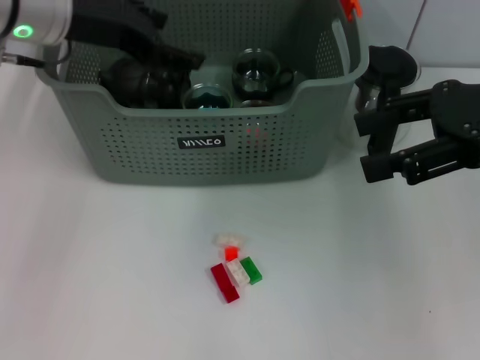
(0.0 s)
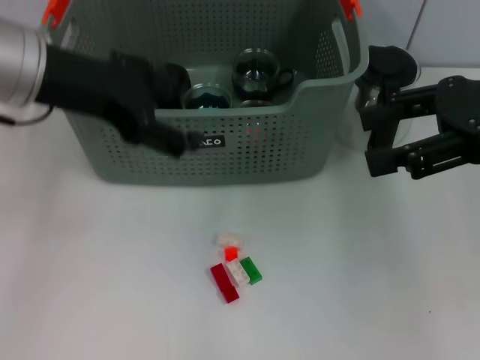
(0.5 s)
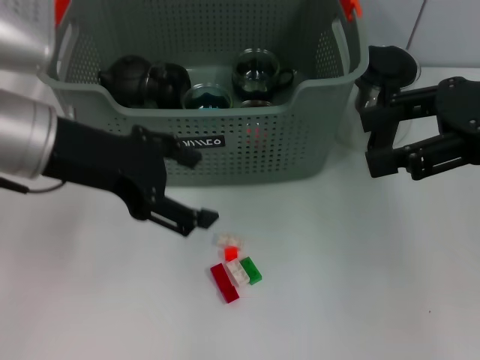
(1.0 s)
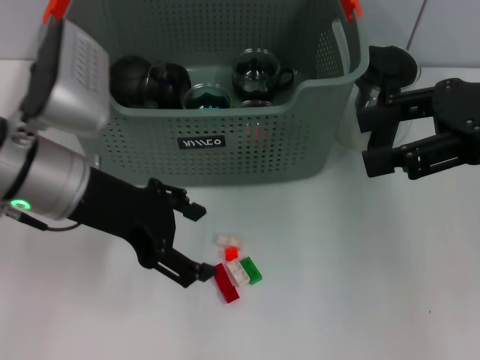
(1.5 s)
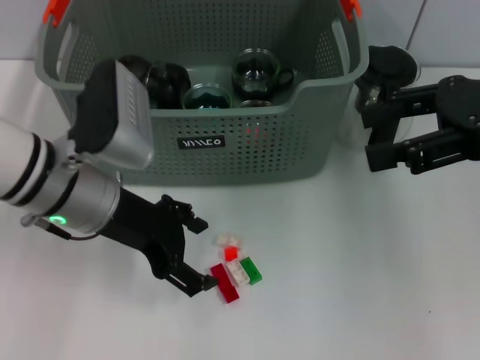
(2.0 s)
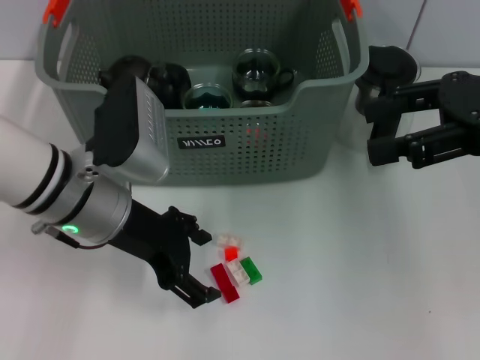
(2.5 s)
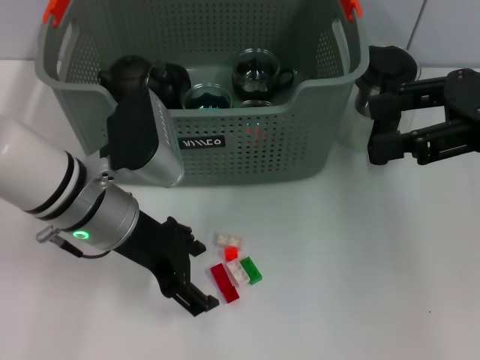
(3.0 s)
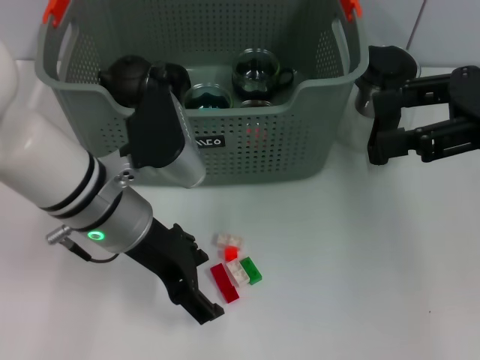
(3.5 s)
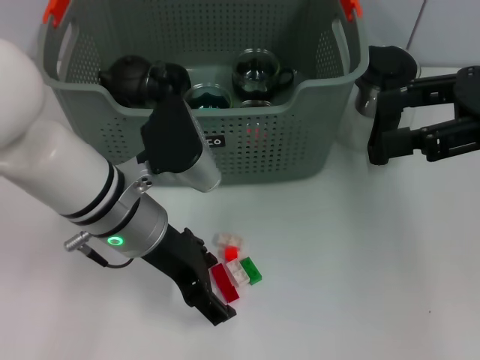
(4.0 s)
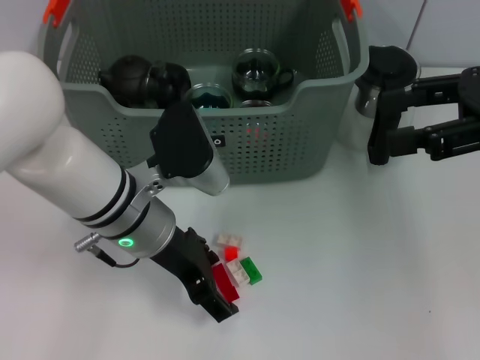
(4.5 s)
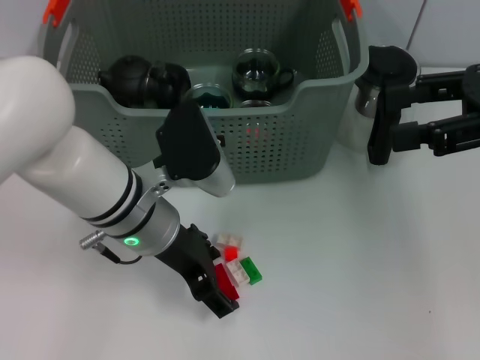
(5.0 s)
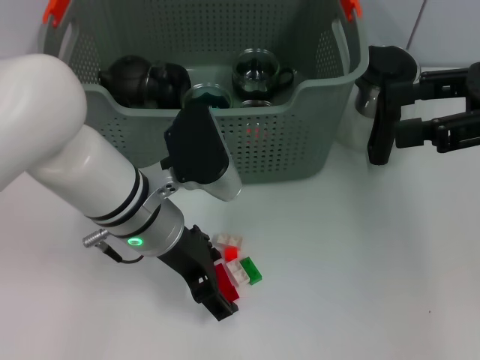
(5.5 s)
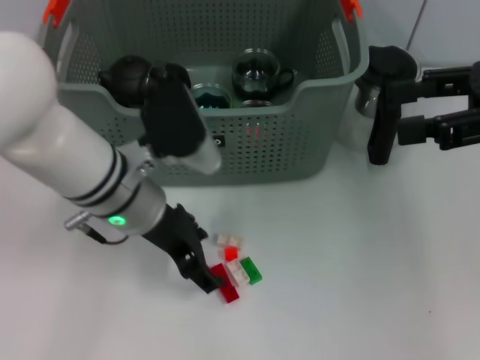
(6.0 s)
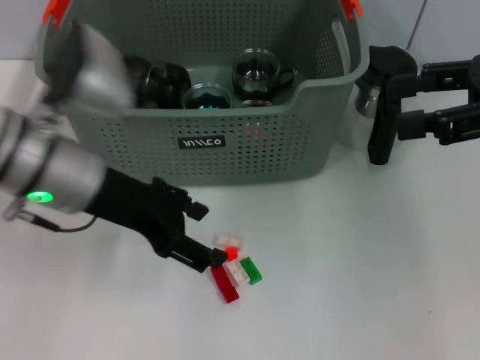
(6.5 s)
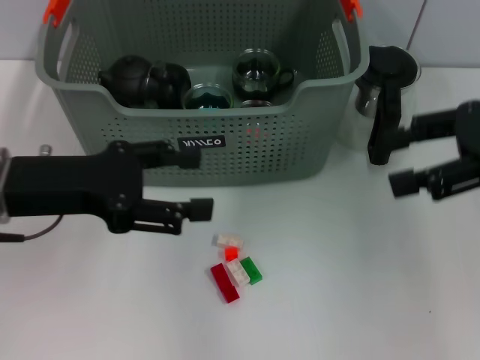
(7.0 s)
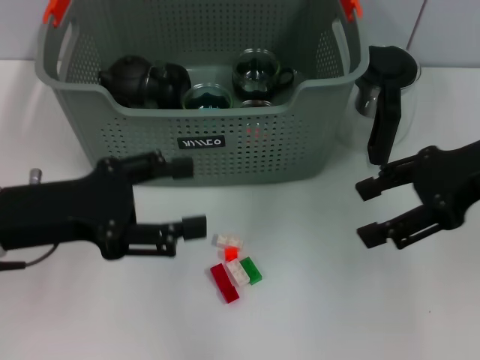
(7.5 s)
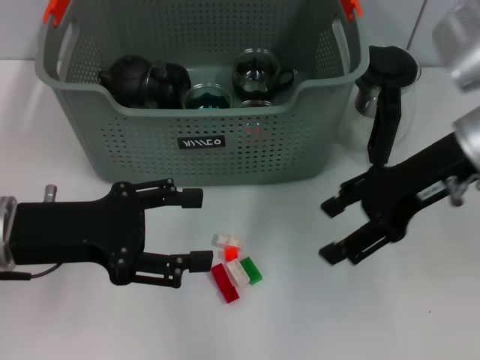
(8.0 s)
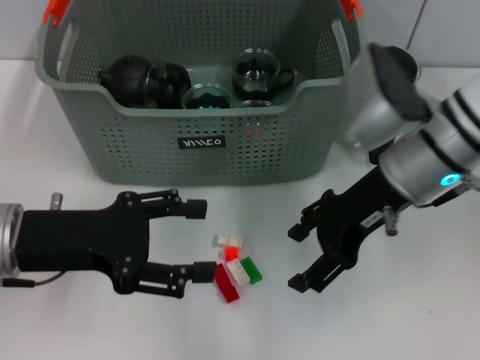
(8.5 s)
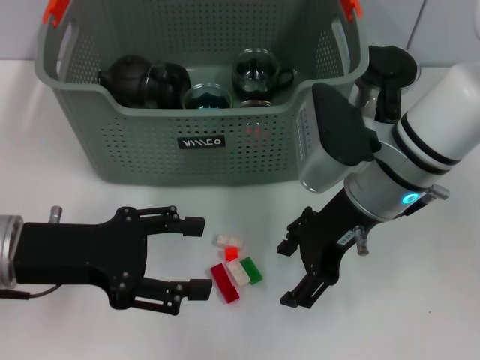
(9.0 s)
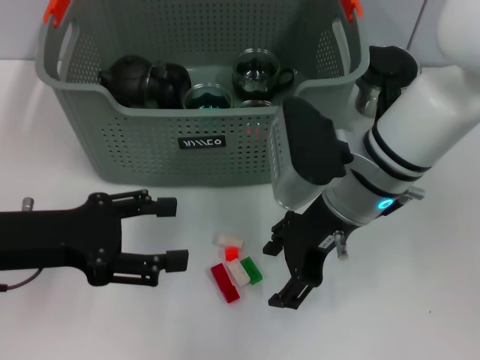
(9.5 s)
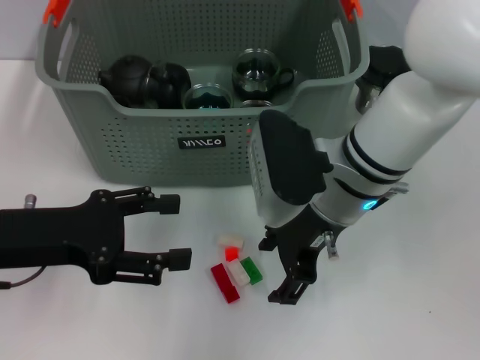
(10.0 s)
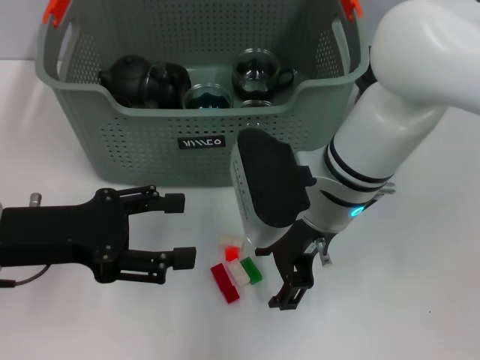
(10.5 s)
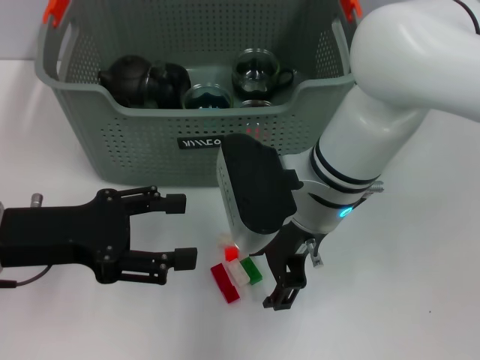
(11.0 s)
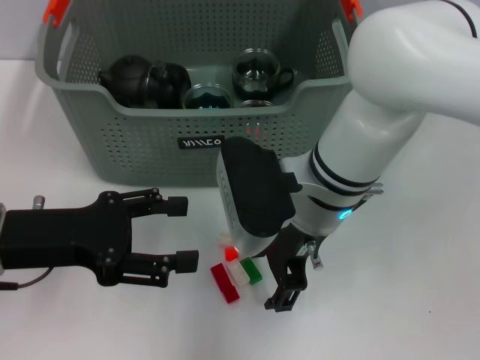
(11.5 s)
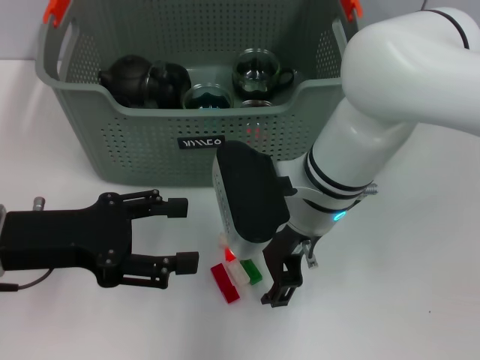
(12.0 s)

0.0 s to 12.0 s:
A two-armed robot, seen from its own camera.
Task of the whole recording: pick up the teacup on the table and place it into the storage bin, pick up the block on the table and place it into the storage bin.
0.0 to 2.0 s: The left gripper is displaced downward and backward by about 15 cm.
2.0 to 4.0 s: The left gripper shifts by some 5 cm.
4.0 to 6.0 s: The grippers move only a little.
6.0 to 8.0 s: The right gripper heads to the left and downward, covering some 10 cm. The left gripper heads to the left and backward, covering some 15 cm.
8.0 to 10.0 s: The right gripper moves to the left and downward, approximately 15 cm.

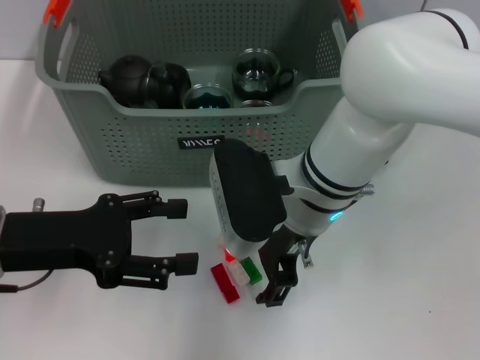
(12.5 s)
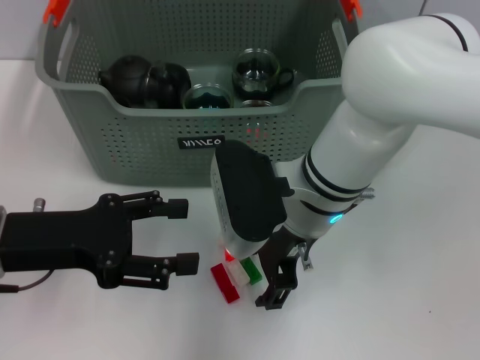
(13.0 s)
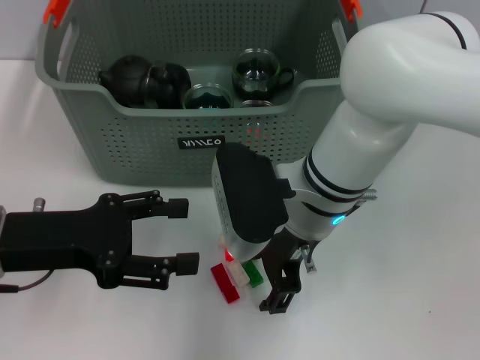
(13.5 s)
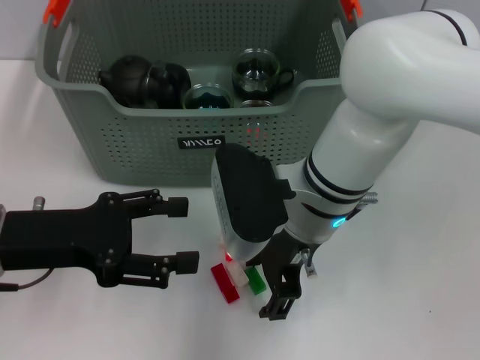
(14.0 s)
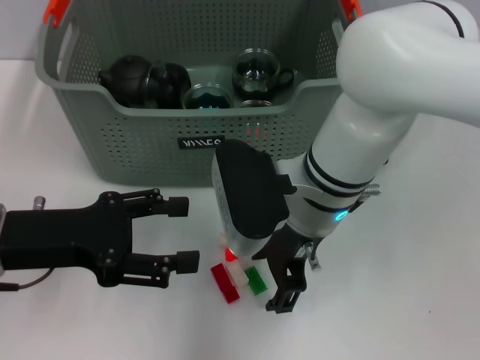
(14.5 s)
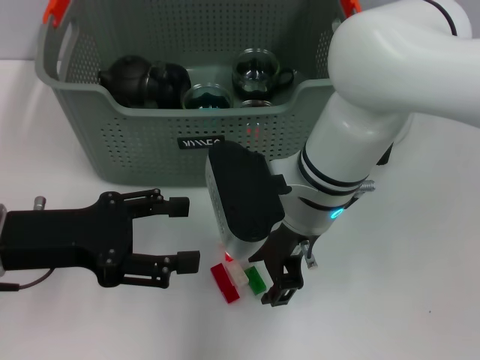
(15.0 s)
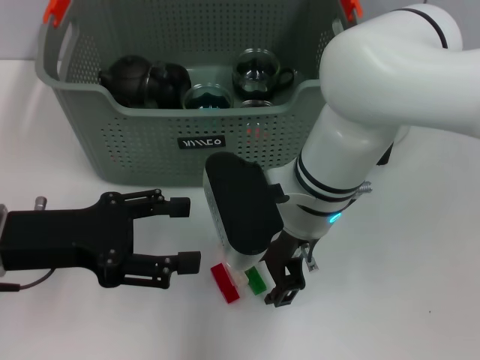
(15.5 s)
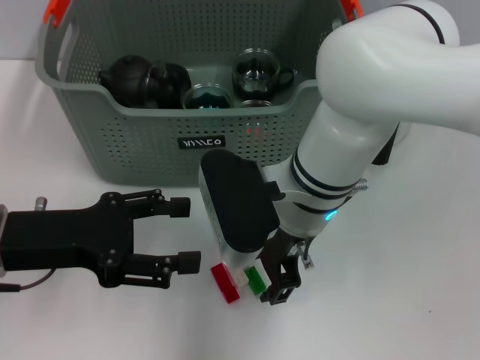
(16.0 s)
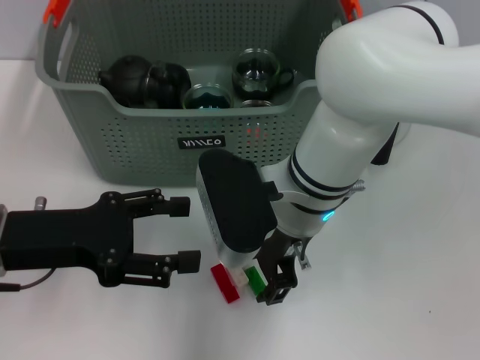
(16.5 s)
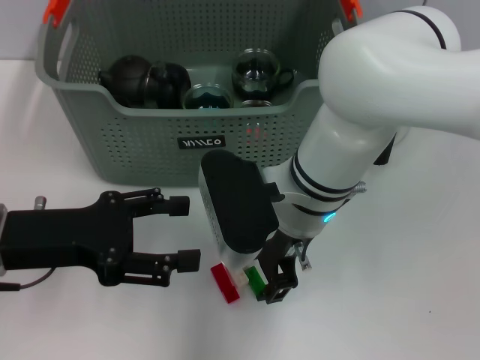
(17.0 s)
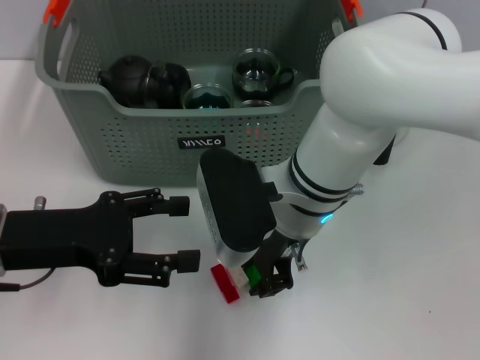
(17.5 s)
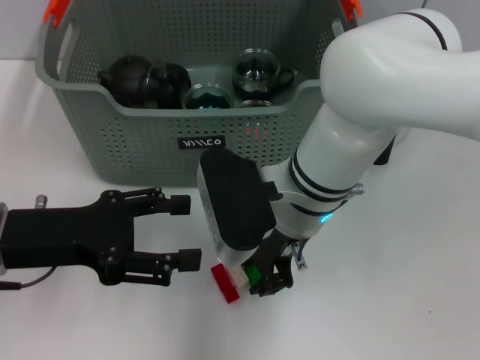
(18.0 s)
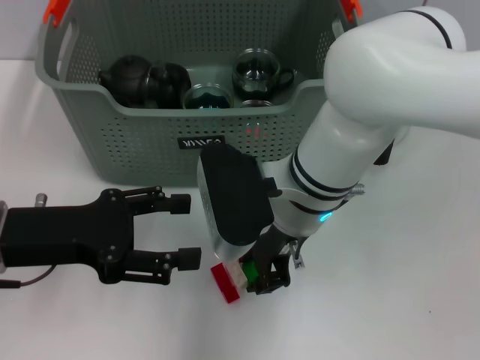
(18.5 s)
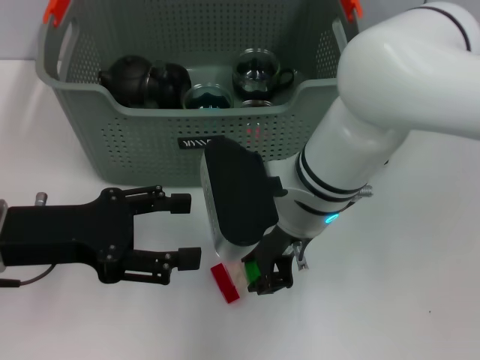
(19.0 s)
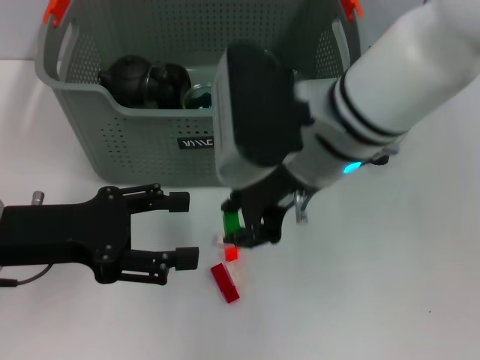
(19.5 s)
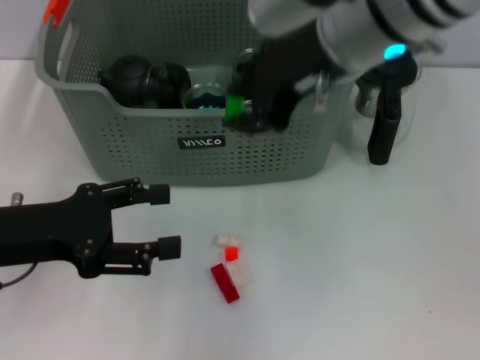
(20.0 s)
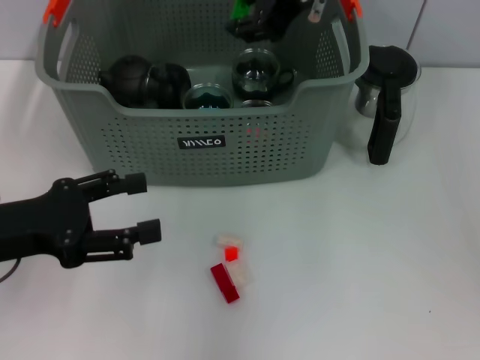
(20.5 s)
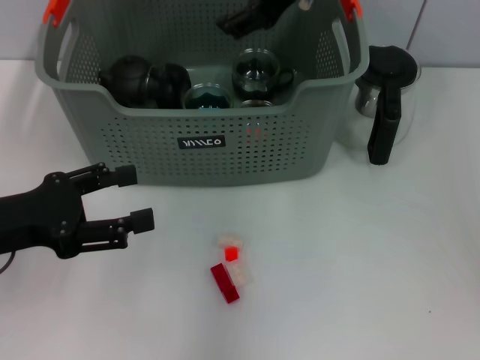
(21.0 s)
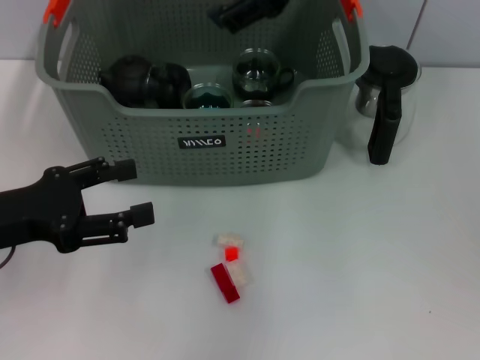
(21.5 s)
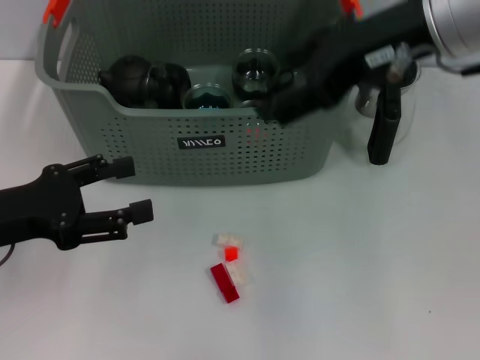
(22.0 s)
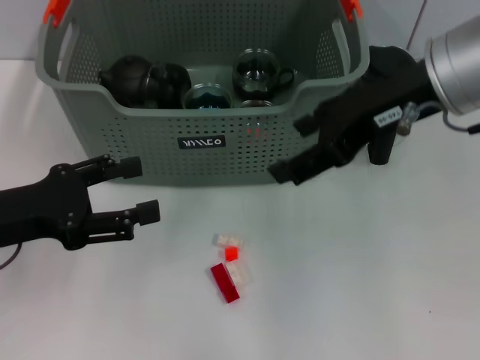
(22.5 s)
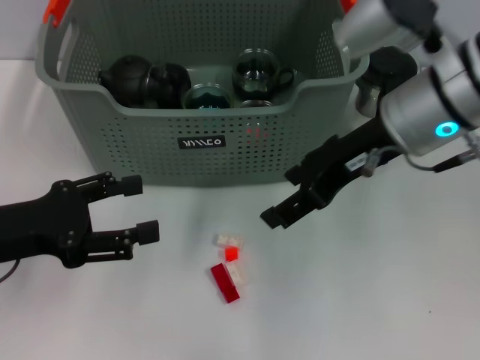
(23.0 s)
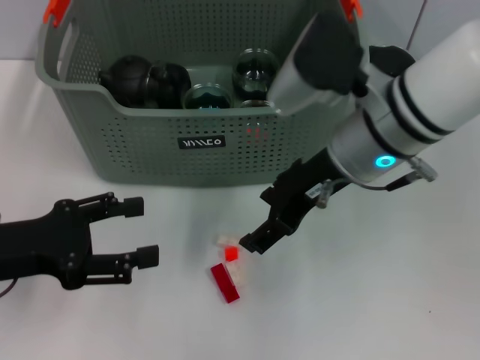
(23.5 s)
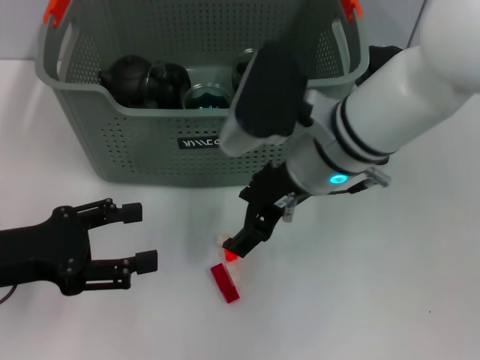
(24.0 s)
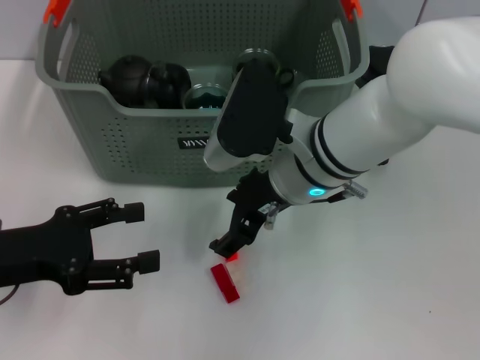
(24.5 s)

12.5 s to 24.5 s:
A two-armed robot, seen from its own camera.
Task of the whole recording: pick up the teacup on the table and place it into the storage bin, pick up the block on the table and place it into the storage bin.
Step, 12.5 to 18.0 s: Grasp the green block with right gripper.
Step, 18.5 to 21.5 s: Place the green block in the storage box with right gripper.
12.5 to 14.5 s: Neither gripper changes place.
14.5 to 16.5 s: The grippers move only a little.
16.5 to 18.5 s: Both grippers stay about where they are.
18.5 to 20.5 s: The right gripper heads upward and forward, covering roughly 20 cm.
20.5 to 22.5 s: The right gripper shifts about 10 cm backward and to the right, and opens.
22.5 to 24.5 s: The right gripper shifts roughly 15 cm downward and to the left.

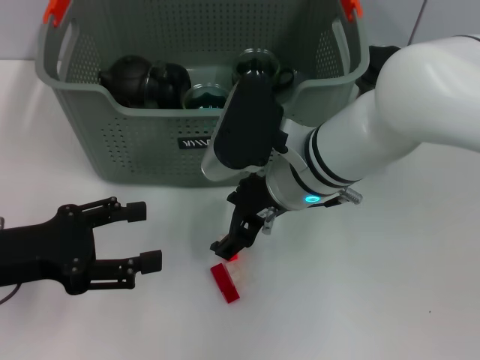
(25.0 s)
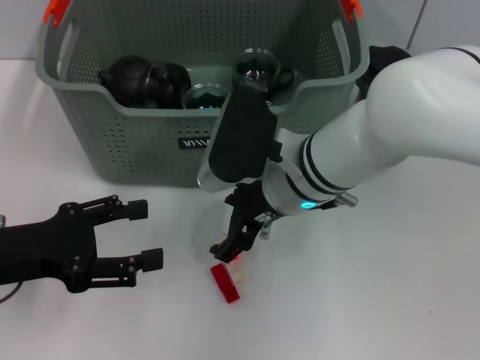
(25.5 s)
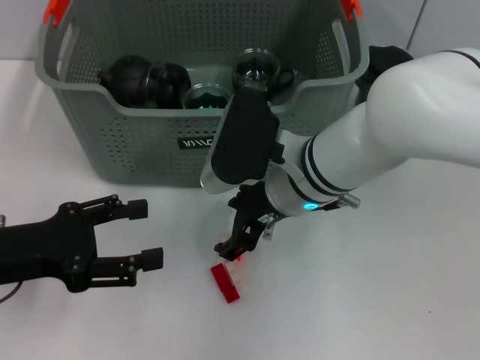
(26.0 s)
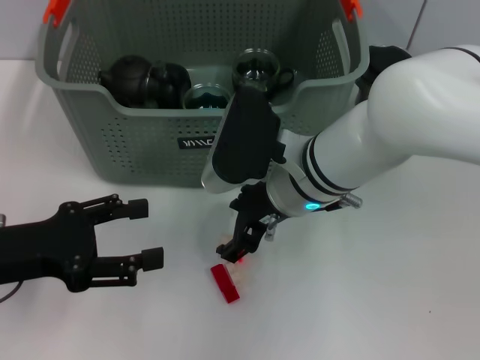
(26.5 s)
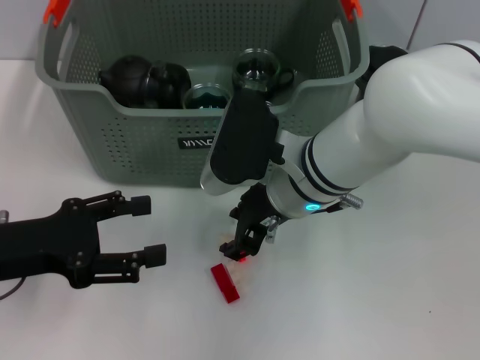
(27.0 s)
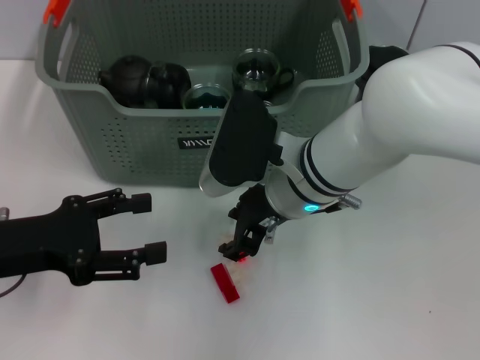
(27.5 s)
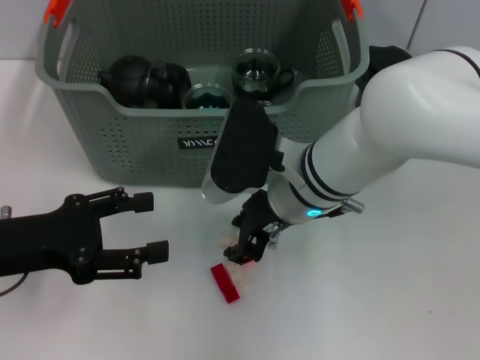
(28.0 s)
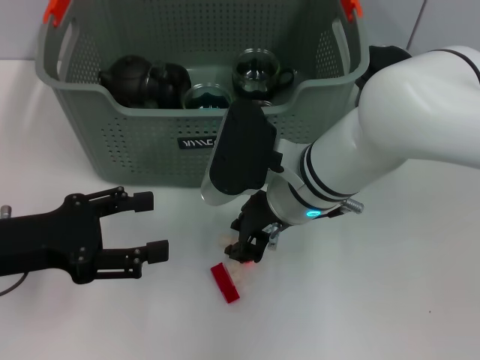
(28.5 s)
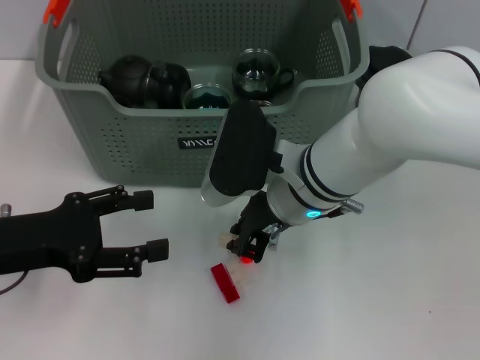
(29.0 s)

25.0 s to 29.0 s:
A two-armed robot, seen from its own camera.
Task of the whole recording: pick up the teacup on the table and place it into the storage bin, pick up the block on the table and place it into the storage bin.
25.0 to 27.0 s: The two grippers keep their place.
27.0 to 29.0 s: The right gripper closes its fingers.
